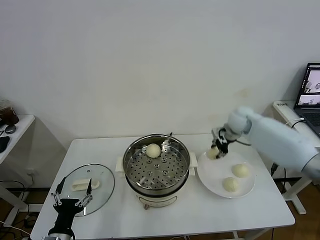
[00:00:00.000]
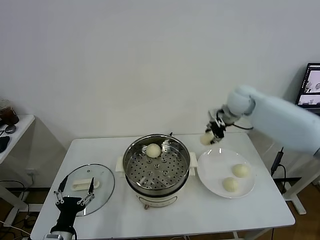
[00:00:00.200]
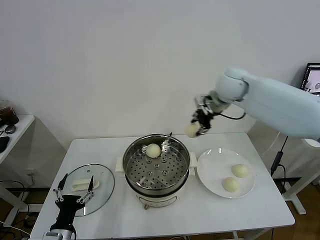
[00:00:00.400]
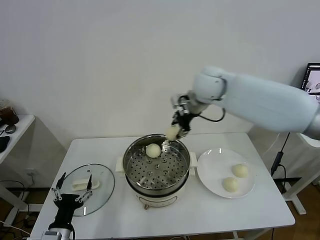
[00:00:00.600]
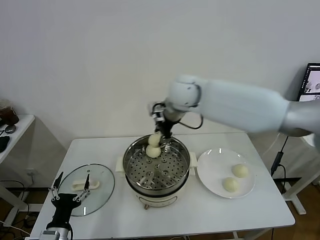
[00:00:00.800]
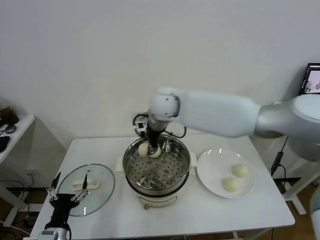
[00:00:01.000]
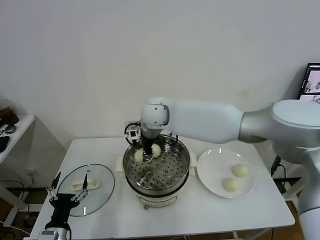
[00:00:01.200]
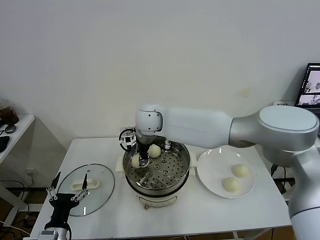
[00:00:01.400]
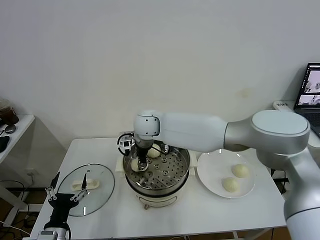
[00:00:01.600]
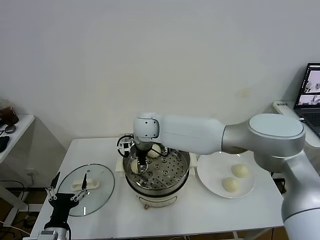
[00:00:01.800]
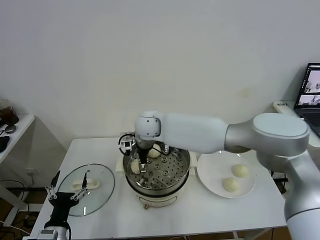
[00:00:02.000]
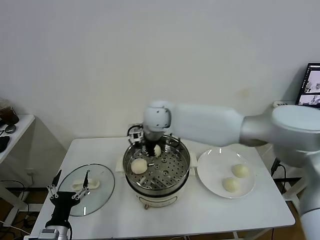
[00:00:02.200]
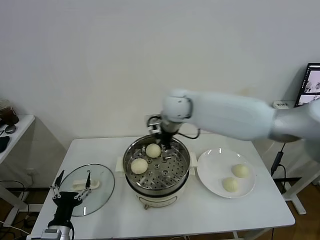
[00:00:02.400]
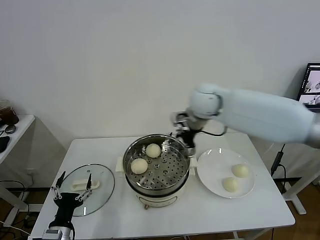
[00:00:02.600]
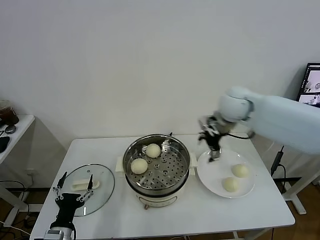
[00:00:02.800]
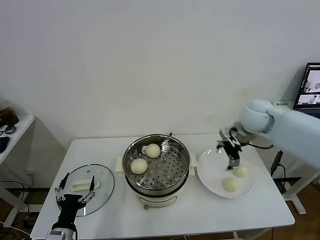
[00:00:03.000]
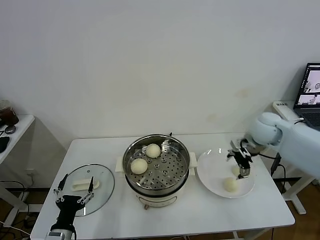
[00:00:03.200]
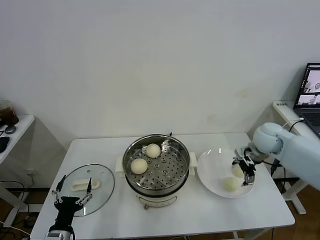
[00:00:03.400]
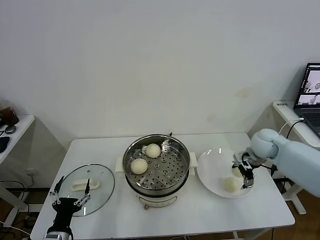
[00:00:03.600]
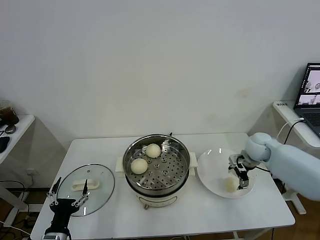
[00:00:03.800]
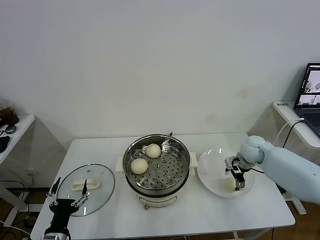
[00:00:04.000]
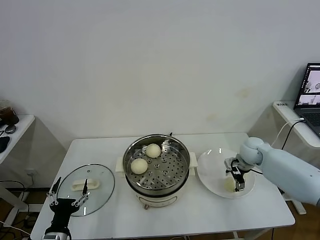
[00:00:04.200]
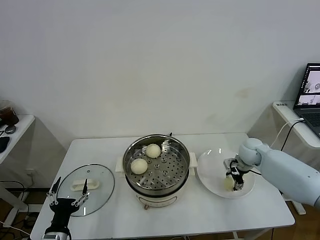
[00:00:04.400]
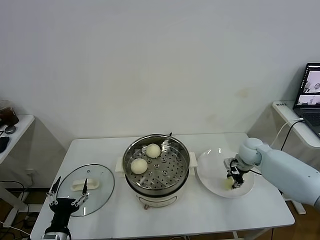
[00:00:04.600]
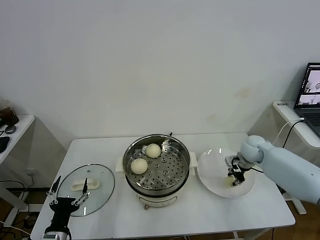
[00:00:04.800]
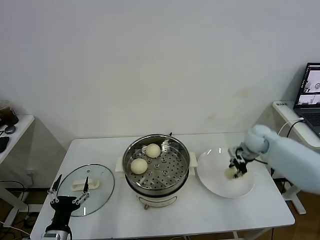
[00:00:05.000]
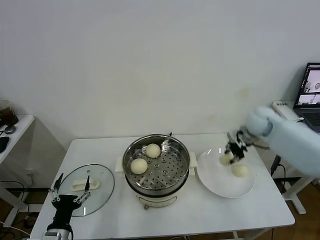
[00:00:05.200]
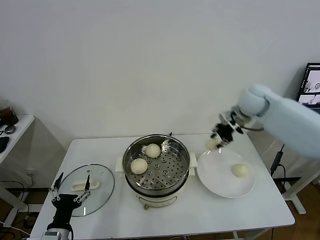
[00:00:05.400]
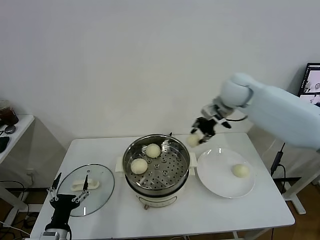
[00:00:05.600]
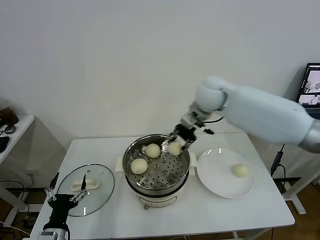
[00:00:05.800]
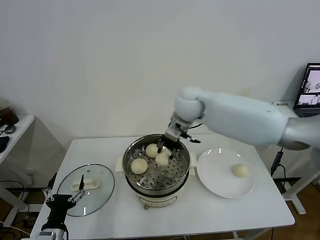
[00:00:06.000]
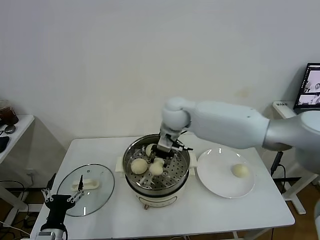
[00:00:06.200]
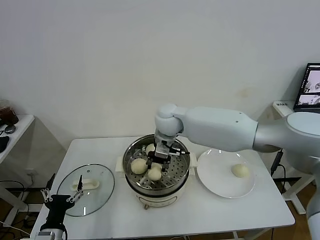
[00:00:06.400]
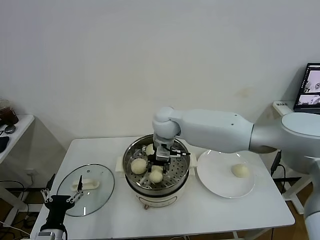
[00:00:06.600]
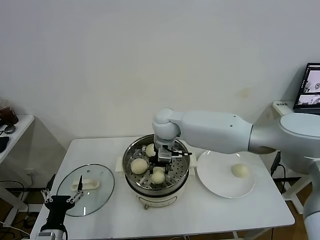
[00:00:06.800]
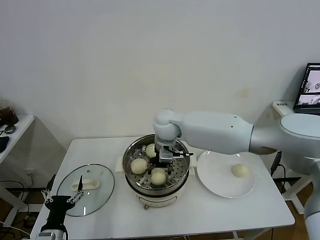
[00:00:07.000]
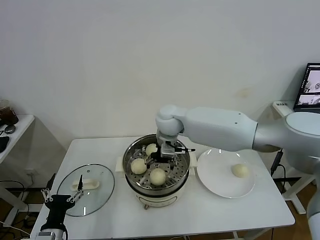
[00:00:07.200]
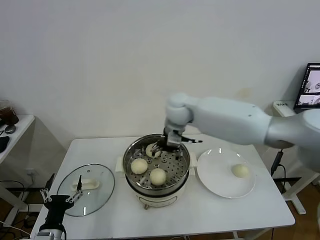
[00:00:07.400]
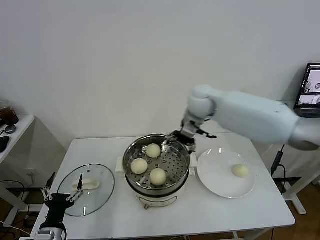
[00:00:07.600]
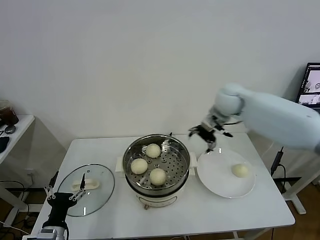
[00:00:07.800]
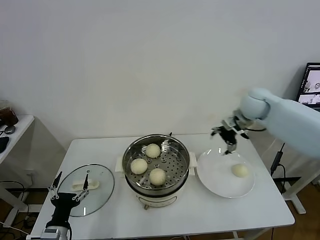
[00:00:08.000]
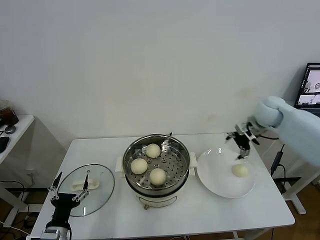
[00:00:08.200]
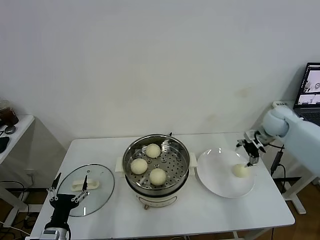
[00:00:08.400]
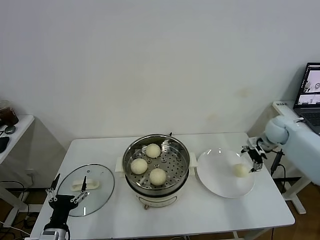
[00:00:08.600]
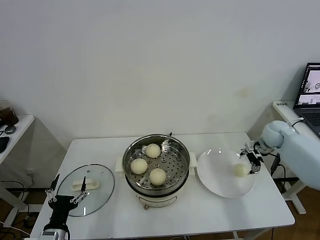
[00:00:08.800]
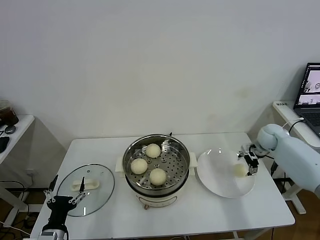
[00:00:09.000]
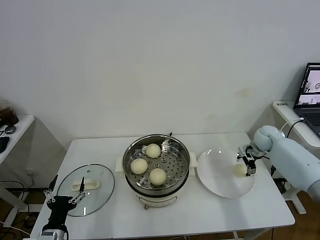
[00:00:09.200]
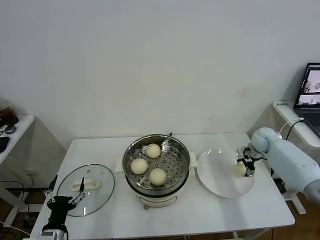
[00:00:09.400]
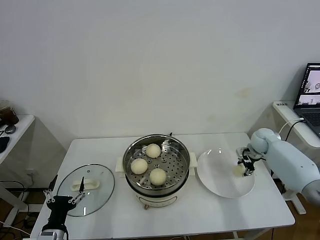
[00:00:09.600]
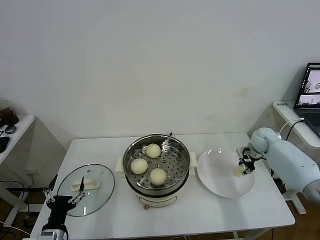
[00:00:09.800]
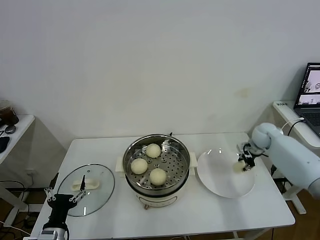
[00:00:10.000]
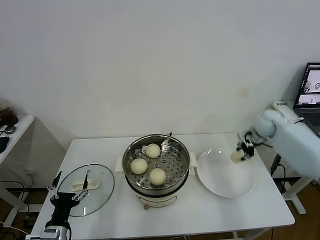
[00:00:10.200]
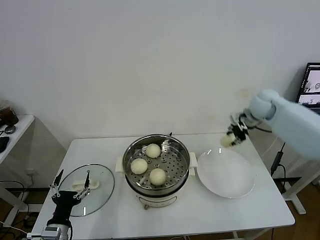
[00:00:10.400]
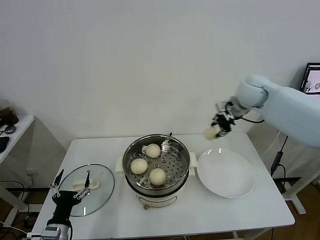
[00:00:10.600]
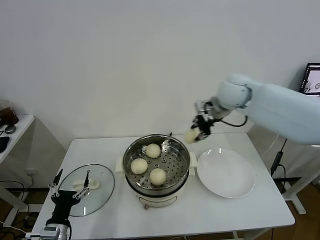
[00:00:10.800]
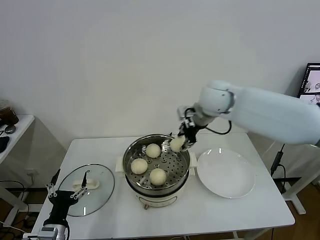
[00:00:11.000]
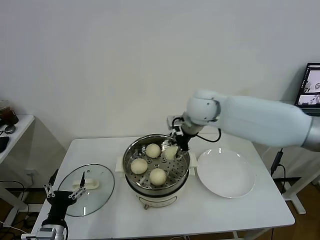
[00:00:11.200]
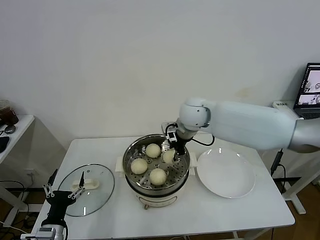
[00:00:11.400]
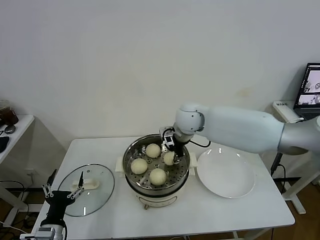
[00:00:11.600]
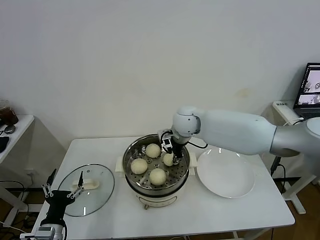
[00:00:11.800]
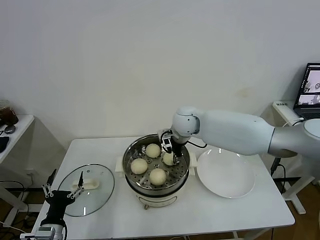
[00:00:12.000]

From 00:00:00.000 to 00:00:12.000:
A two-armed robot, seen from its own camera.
Task of the whole recording: take steamed baozi put them in steamer.
Step, from 00:00:00.000 to 00:00:02.000: Place the baozi on the steamer with right gripper.
Step, from 00:00:02.200 to 00:00:04.800: Grasp the baozi in the plate with right gripper.
Step, from 00:00:05.000 to 00:00:07.200: Place the baozi on the steamer with right gripper.
Step, from 00:00:07.400 to 00:00:09.800: Grasp the baozi in the plate with right gripper.
From 00:00:00.000 to 00:00:01.600: The right gripper moves to the left, approximately 35 cm.
From 00:00:01.600 to 00:00:03.000: The right gripper shifts some 35 cm to the right, and opens up.
From 00:00:03.000 to 00:00:04.400: The right gripper goes some 20 cm downward, and closes.
From 00:00:04.400 to 00:00:06.000: The right gripper is displaced to the left and upward by roughly 35 cm, and closes up.
From 00:00:06.000 to 00:00:07.600: The right gripper moves to the right, approximately 5 cm, and opens its fingers.
From 00:00:07.600 to 00:00:09.000: The right gripper is displaced to the right and downward by roughly 35 cm.
From 00:00:09.000 to 00:00:10.400: The right gripper travels upward and to the left by about 15 cm, and closes.
From 00:00:10.400 to 00:00:12.000: The right gripper shifts roughly 25 cm to the left, and opens.

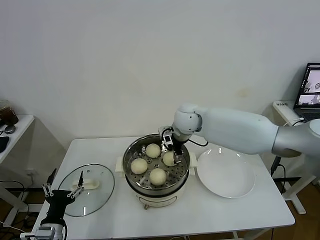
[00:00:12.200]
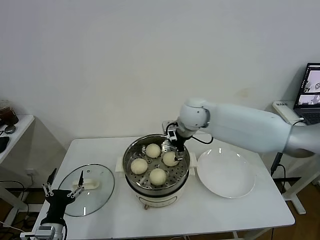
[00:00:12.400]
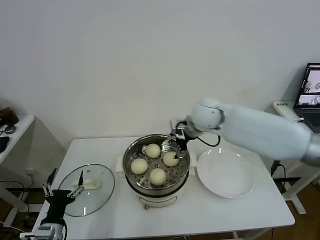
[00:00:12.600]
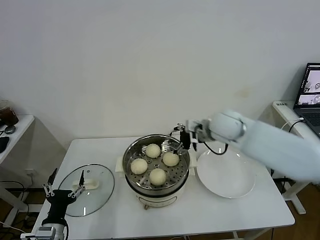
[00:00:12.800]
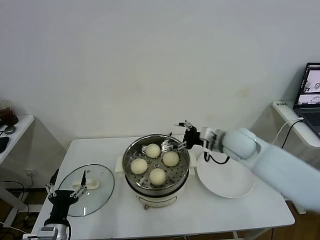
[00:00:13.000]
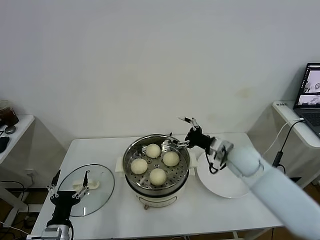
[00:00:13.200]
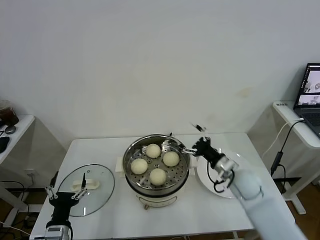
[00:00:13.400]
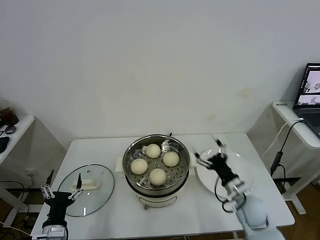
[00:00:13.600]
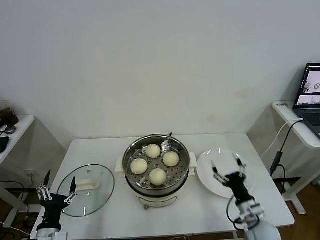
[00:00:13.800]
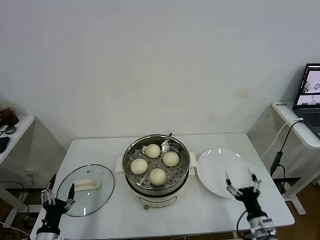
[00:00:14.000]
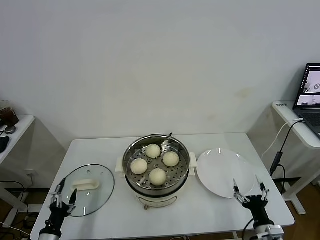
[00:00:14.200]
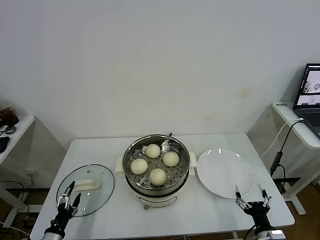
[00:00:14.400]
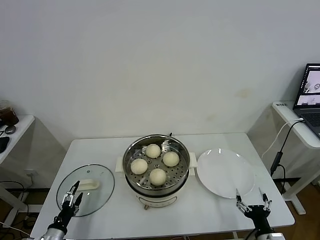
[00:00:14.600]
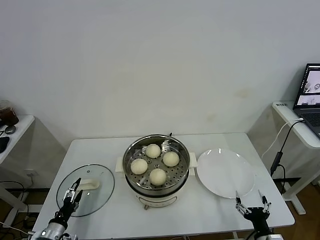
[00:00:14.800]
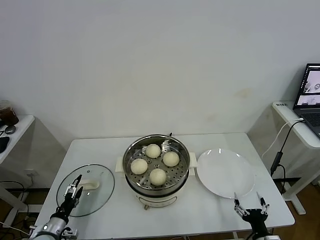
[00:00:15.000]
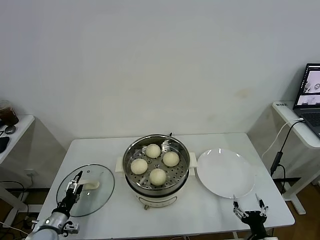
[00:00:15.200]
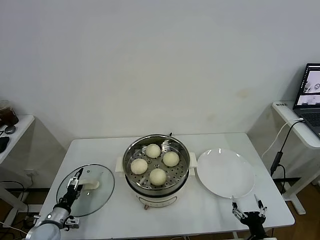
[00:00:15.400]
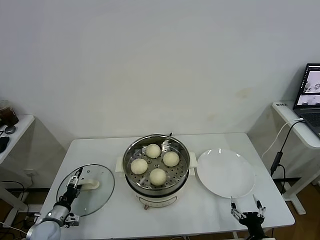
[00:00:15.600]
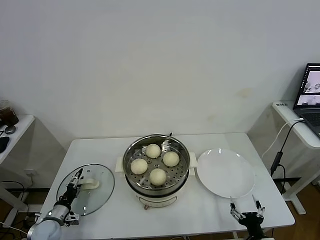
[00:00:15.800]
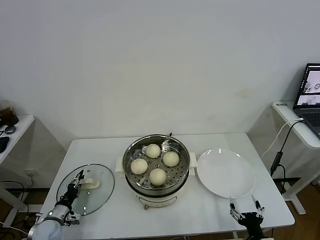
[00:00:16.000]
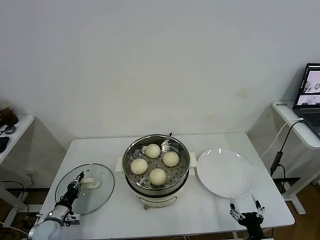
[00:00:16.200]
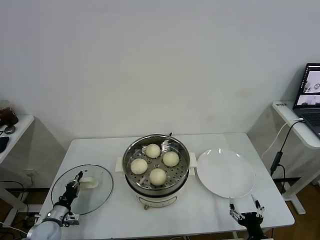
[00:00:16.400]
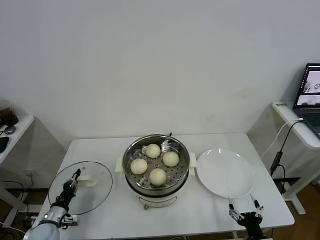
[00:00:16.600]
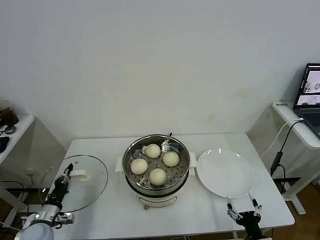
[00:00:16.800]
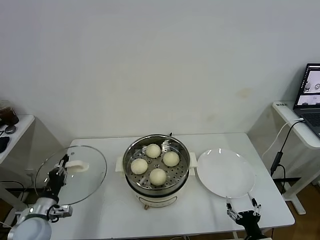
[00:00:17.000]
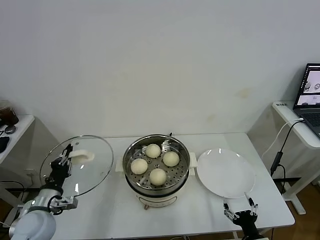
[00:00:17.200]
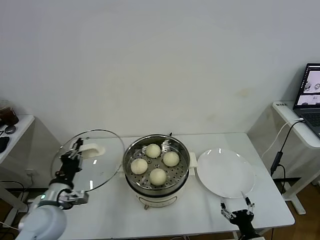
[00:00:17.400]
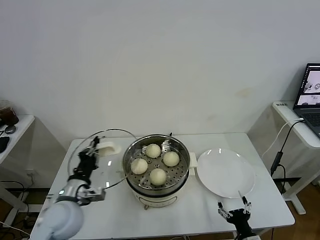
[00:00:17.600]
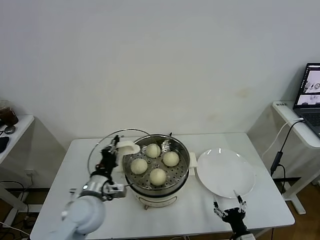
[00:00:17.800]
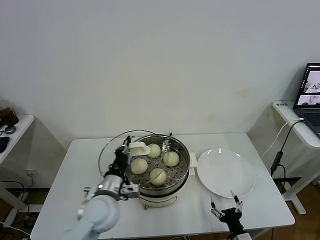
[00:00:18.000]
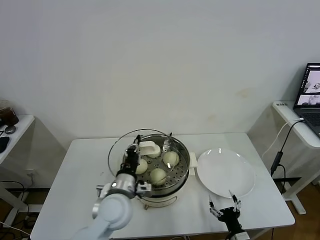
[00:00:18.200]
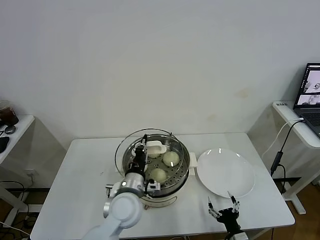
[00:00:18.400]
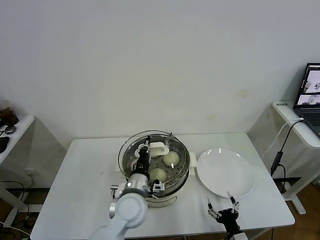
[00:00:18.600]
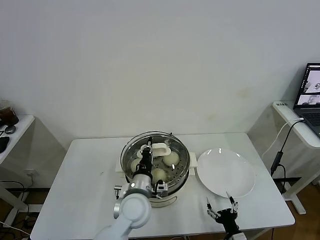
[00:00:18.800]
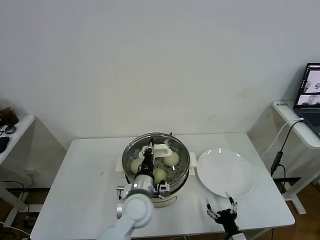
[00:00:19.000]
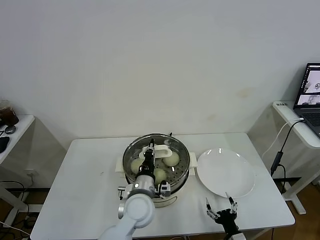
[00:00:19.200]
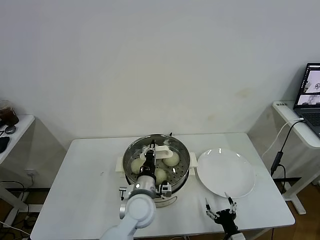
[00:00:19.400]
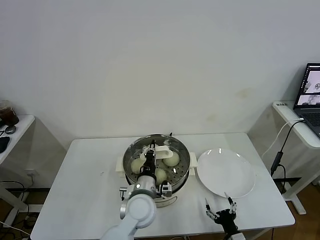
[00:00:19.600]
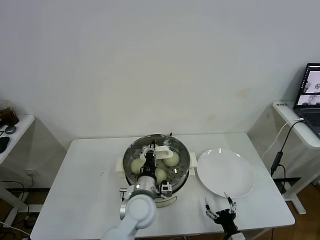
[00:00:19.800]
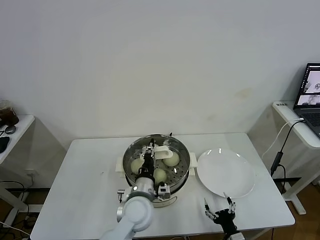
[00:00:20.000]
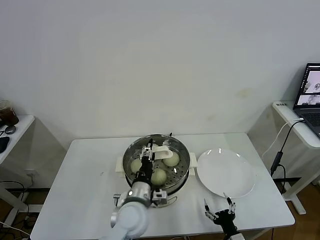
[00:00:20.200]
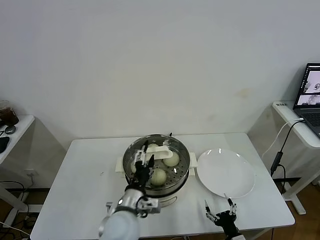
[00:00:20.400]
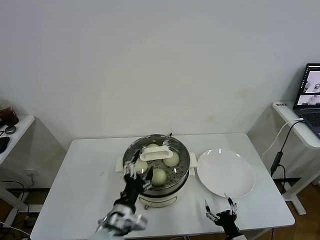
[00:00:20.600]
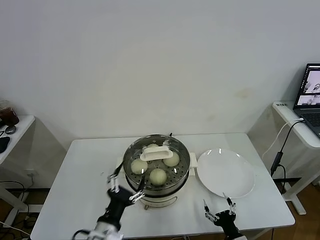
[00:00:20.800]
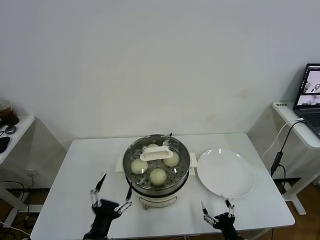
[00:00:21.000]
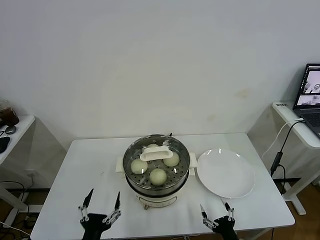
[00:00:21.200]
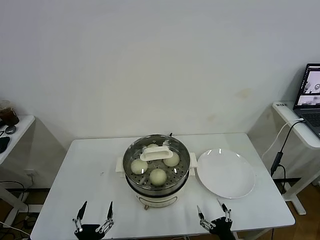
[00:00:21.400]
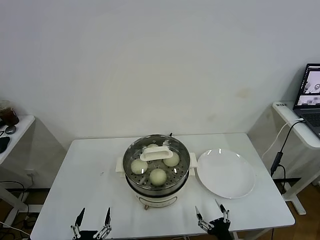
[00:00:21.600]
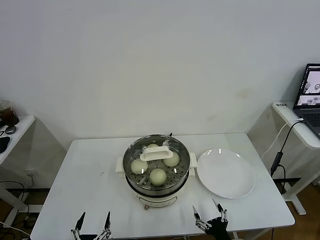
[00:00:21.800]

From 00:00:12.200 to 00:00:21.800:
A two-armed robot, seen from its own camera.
Task of the whole recording: take steamed baozi put them in steamer.
Step, from 00:00:12.600 to 00:00:16.400: Grasp the pot lid with left gripper.
Step, from 00:00:16.800 to 00:00:20.400: Place the pot lid on the steamer with left gripper.
From 00:00:12.200 to 00:00:13.800: The right gripper heads backward, downward and to the right, covering approximately 40 cm.
From 00:00:13.800 to 00:00:15.400: The right gripper heads backward, covering about 10 cm. Meanwhile the left gripper shifts roughly 15 cm forward, downward and to the left.
From 00:00:15.400 to 00:00:17.000: The left gripper shifts some 10 cm upward, and closes up.
From 00:00:17.000 to 00:00:18.600: The right gripper shifts by approximately 5 cm; the left gripper goes roughly 30 cm to the right.
From 00:00:18.600 to 00:00:20.200: The left gripper opens its fingers.
From 00:00:20.200 to 00:00:21.800: The left gripper moves backward, to the left and downward, some 30 cm, and opens up; the right gripper shifts by approximately 5 cm.
